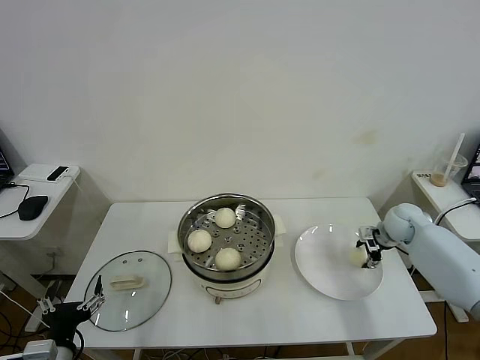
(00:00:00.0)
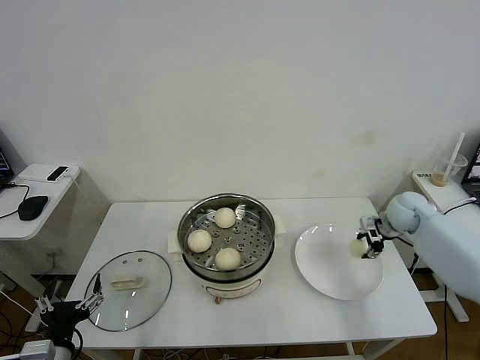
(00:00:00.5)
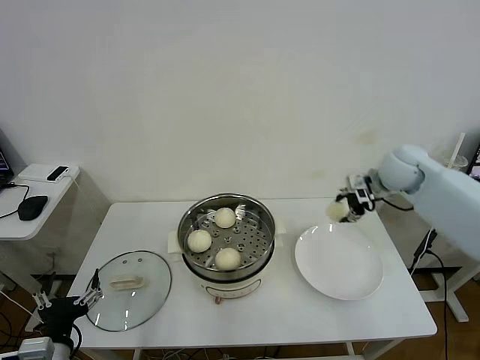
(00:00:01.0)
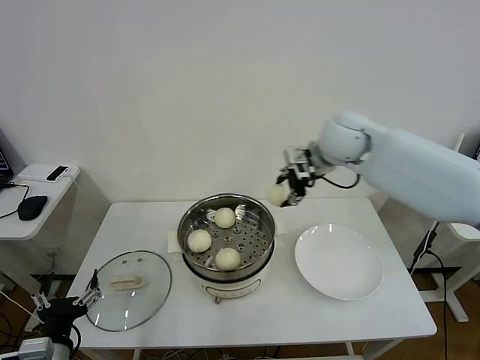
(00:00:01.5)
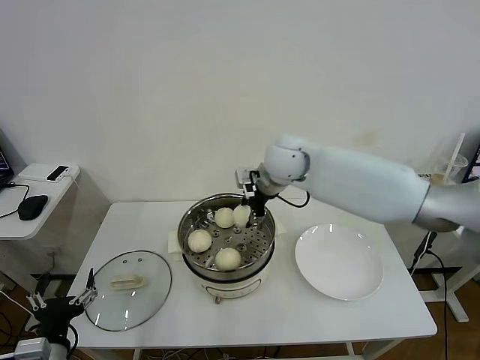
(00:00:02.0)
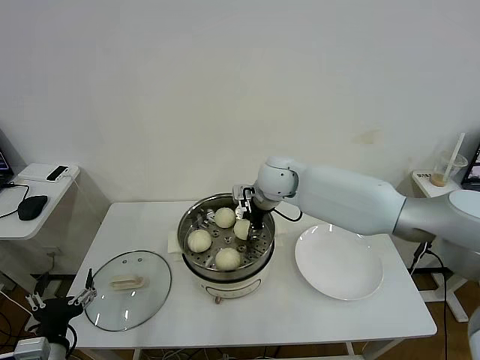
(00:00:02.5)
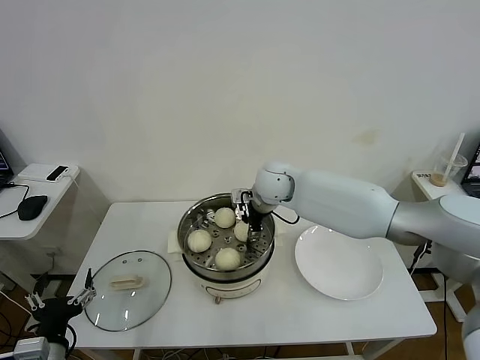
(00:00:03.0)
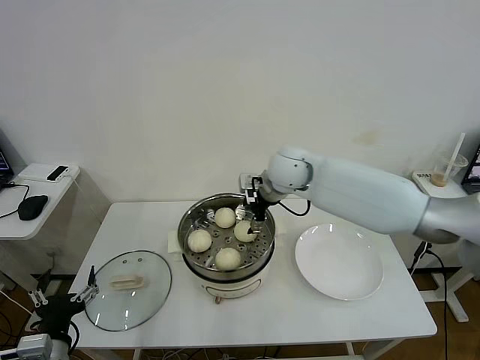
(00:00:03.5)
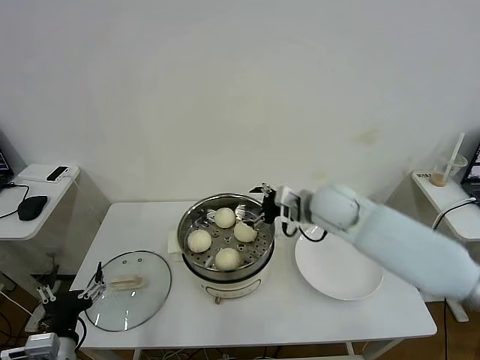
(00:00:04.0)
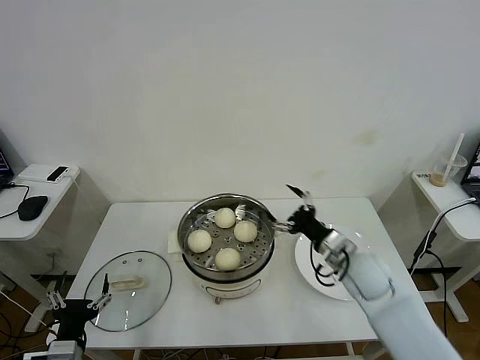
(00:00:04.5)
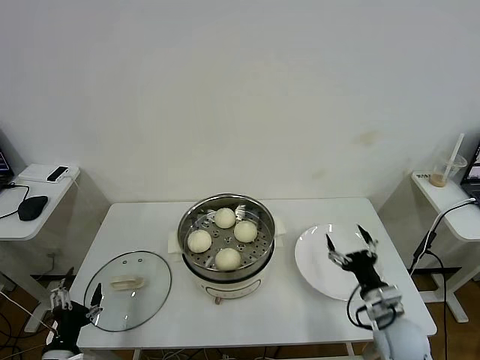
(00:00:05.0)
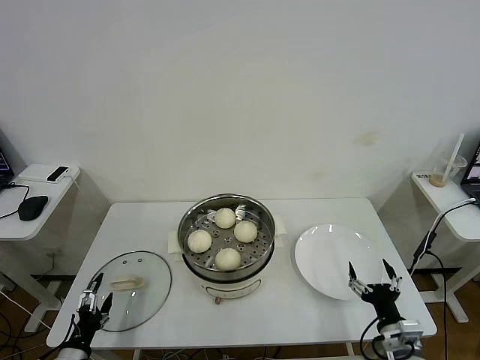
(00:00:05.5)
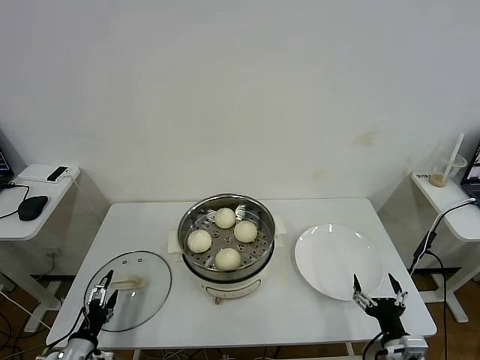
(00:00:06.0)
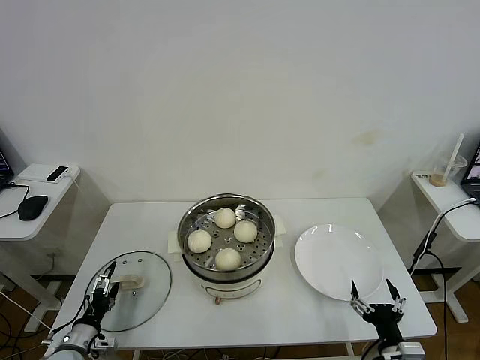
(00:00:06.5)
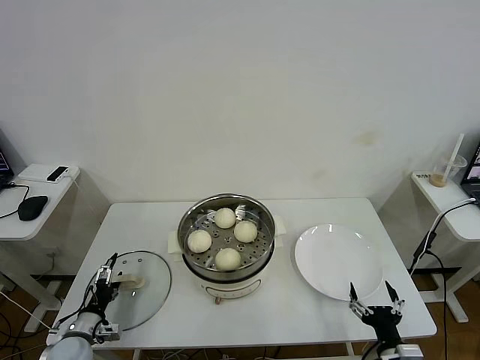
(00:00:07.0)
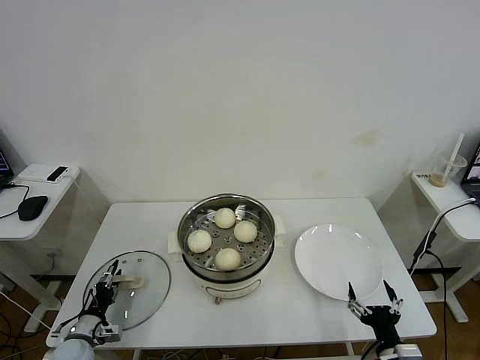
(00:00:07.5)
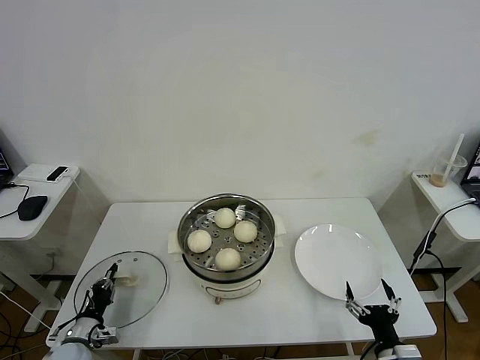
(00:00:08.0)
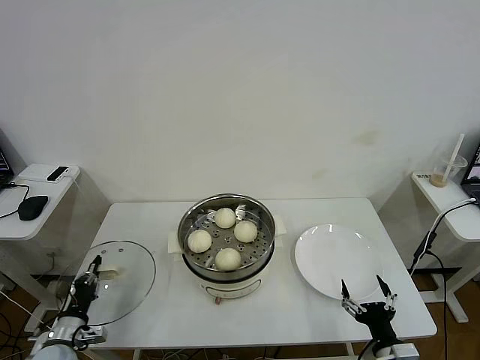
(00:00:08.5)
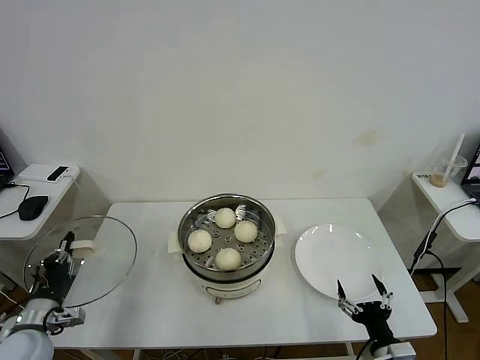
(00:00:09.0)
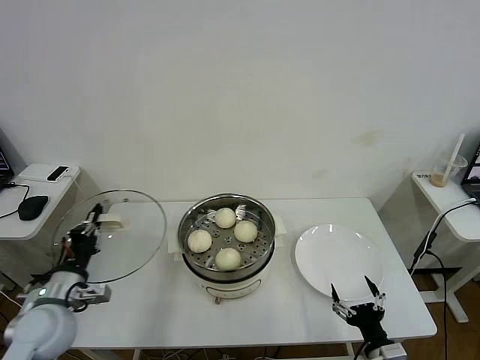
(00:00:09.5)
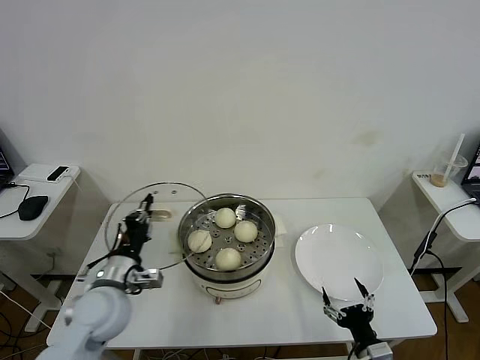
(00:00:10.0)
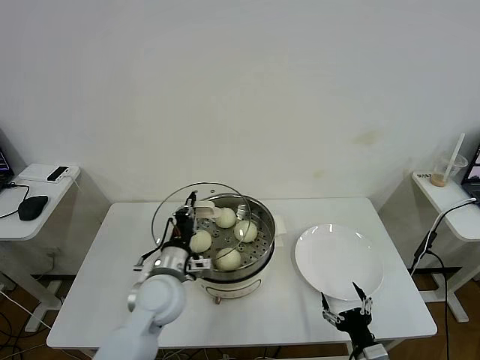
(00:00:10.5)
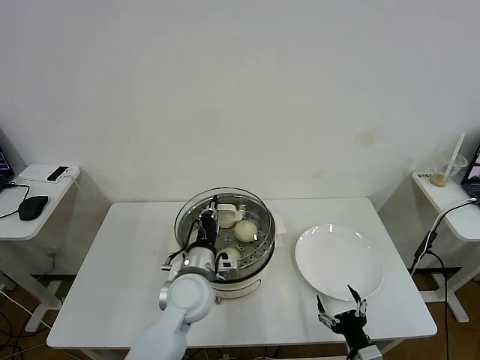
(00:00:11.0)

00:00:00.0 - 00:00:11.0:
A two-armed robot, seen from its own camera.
Task of the whole recording: take steamed baozi put them in steamer then cover it.
Step, 00:00:00.5 - 00:00:03.0: Place the baozi on the steamer with right gripper.
Step, 00:00:03.5 - 00:00:08.0: Grasp the pot lid with left gripper.
00:00:00.0 - 00:00:02.0: The right gripper shifts approximately 40 cm to the left and upward.
00:00:02.0 - 00:00:03.5: The right gripper opens its fingers.
00:00:03.5 - 00:00:05.5: The right gripper is displaced backward, downward and to the right by roughly 50 cm, while the left gripper goes some 15 cm downward and to the left.
00:00:05.5 - 00:00:07.5: The left gripper moves forward and downward, about 10 cm, and closes up. Meanwhile the right gripper changes place by some 5 cm.
00:00:07.5 - 00:00:09.0: The left gripper is displaced upward by approximately 15 cm, and closes up.
00:00:09.0 - 00:00:11.0: The left gripper moves to the right, some 30 cm.

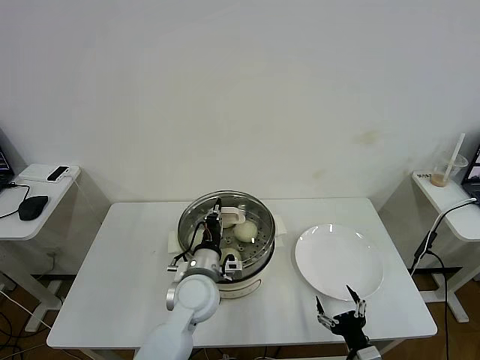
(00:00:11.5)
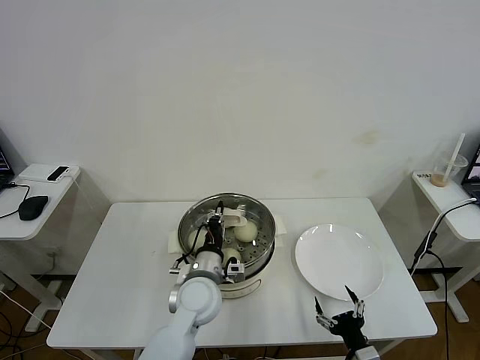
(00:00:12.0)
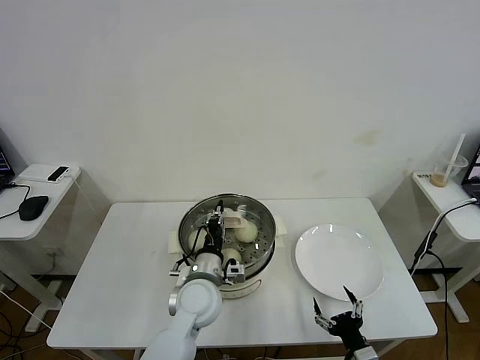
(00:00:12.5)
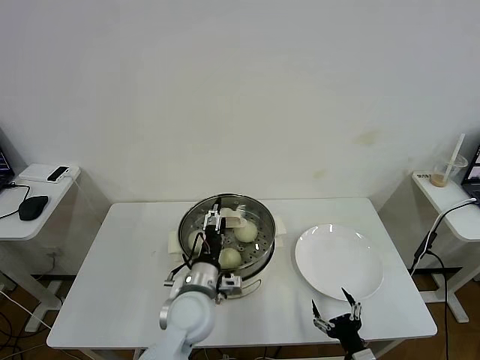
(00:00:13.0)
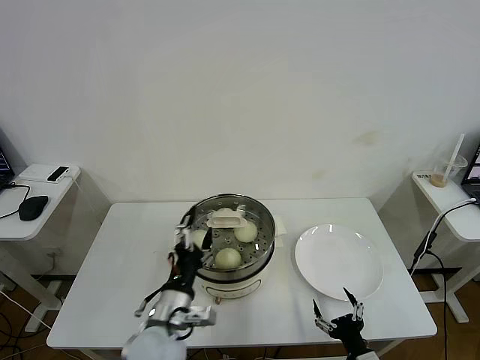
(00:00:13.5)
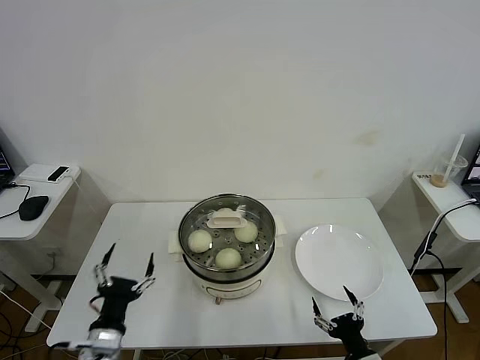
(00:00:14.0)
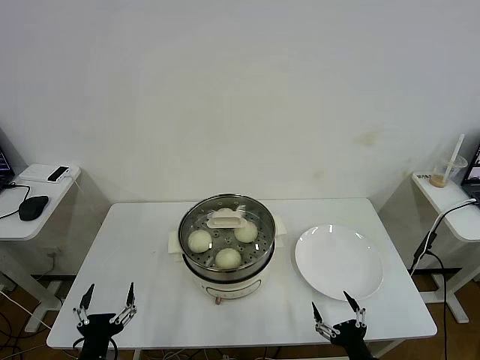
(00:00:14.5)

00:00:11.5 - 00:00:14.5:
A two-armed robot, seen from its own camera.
Task of the whole recording: take steamed baozi put them in steamer then cover it.
Step, 00:00:11.5 - 00:00:13.5: Place the pot lid on the steamer with left gripper.
00:00:11.5 - 00:00:13.0: The left gripper opens.
00:00:13.0 - 00:00:14.5: The left gripper moves to the left and backward, some 25 cm.
